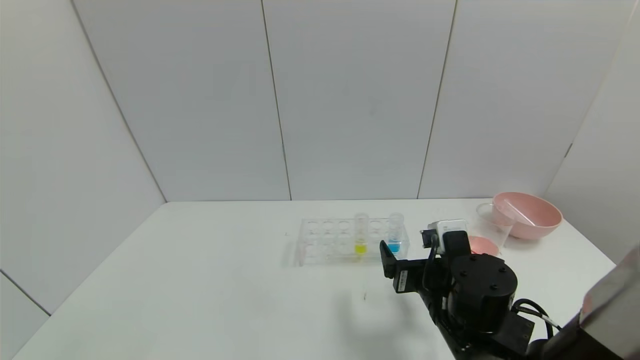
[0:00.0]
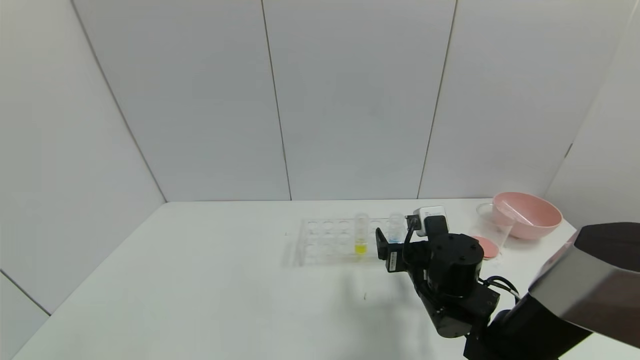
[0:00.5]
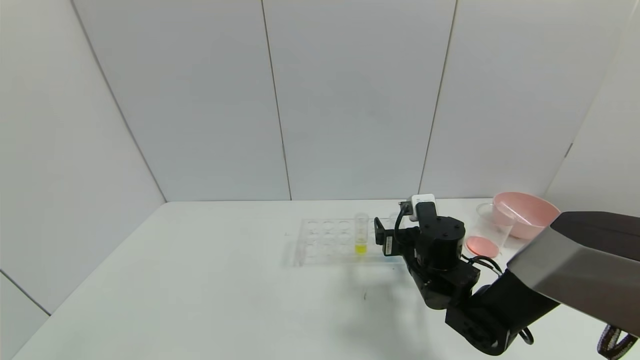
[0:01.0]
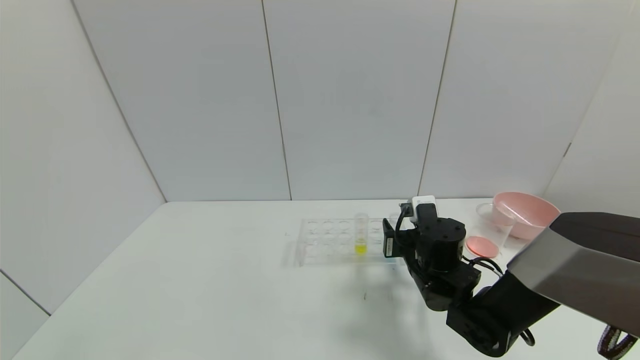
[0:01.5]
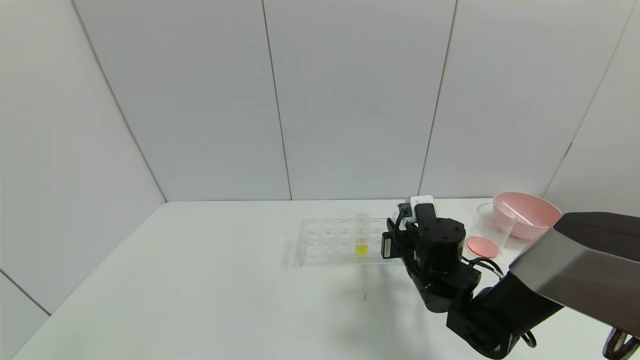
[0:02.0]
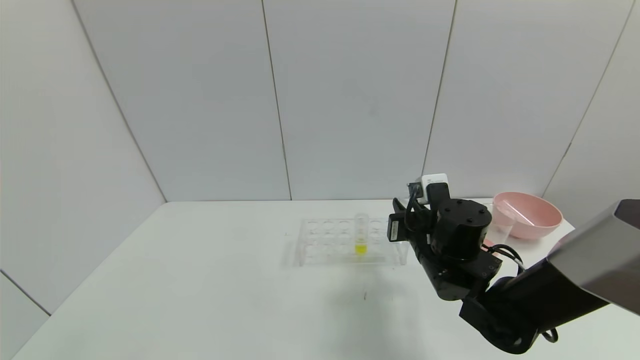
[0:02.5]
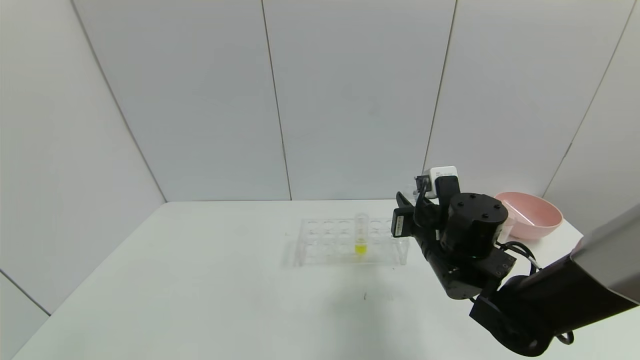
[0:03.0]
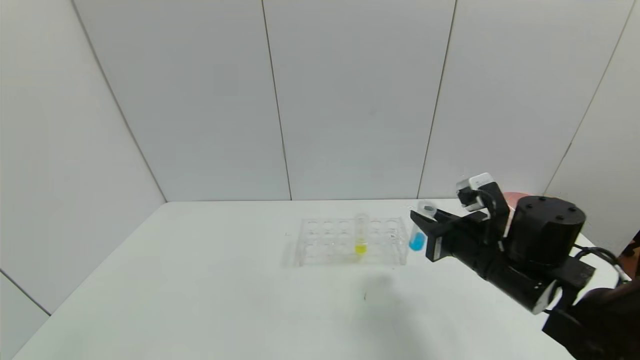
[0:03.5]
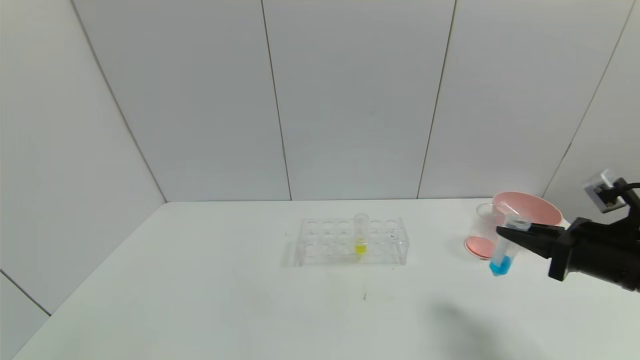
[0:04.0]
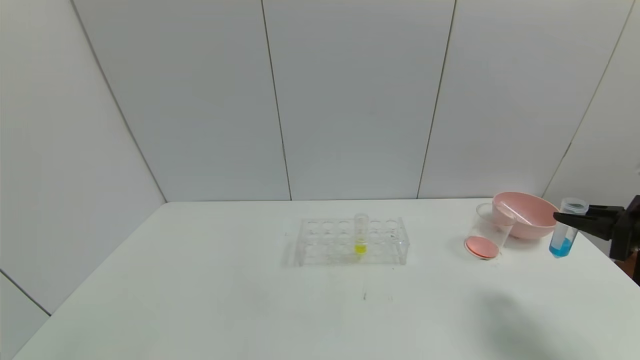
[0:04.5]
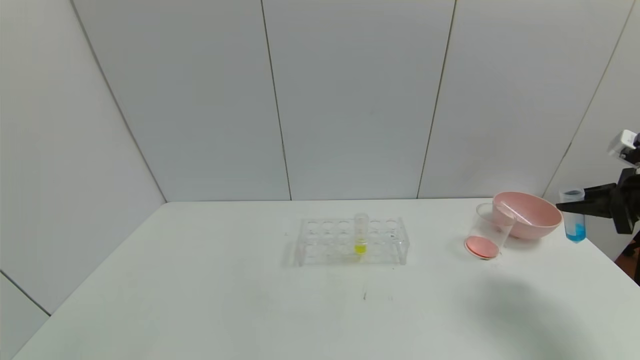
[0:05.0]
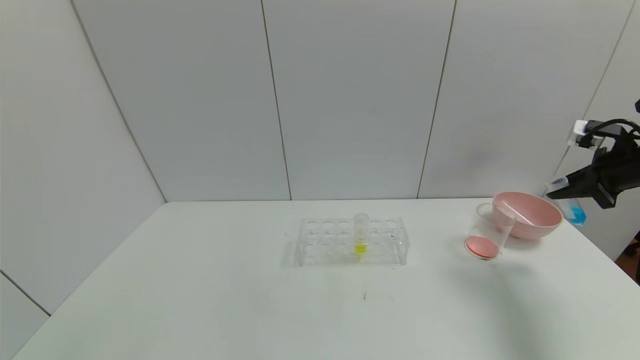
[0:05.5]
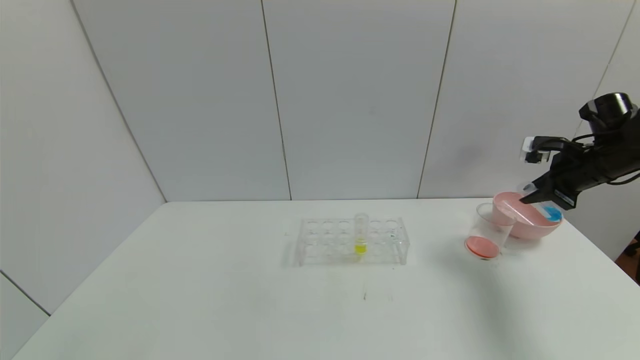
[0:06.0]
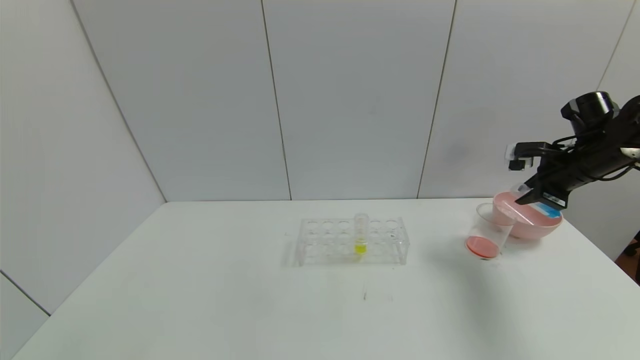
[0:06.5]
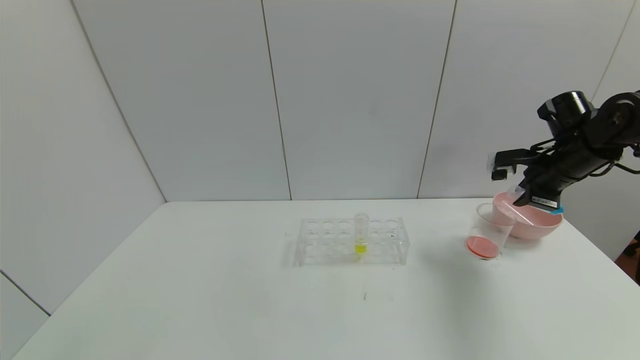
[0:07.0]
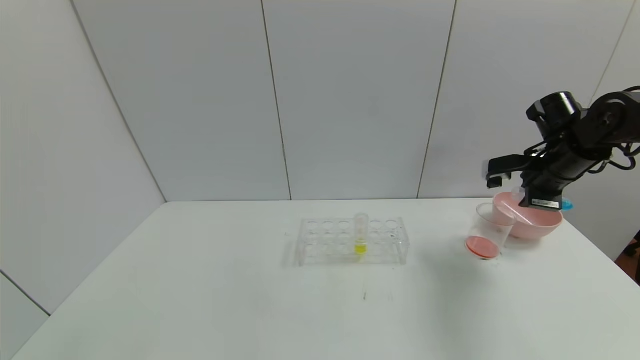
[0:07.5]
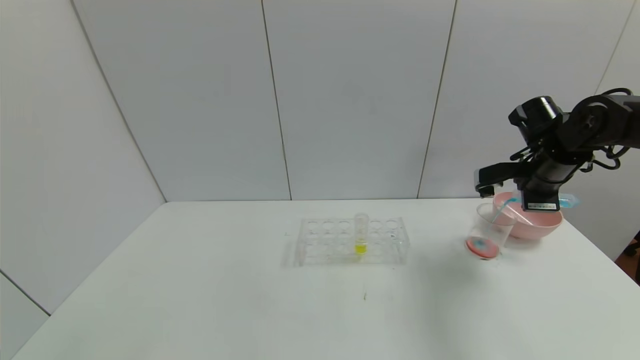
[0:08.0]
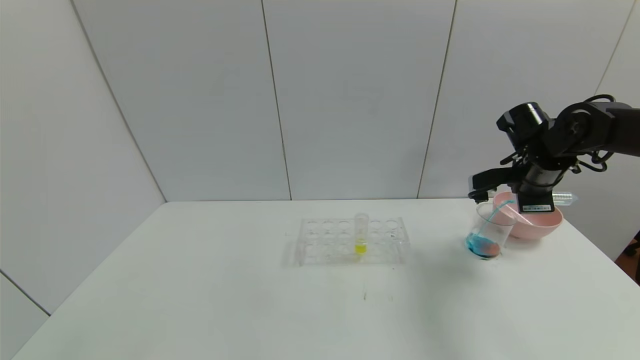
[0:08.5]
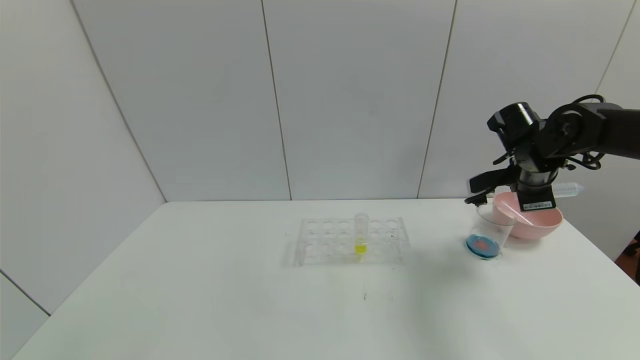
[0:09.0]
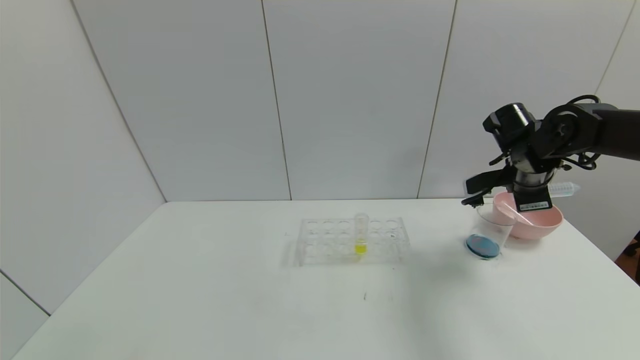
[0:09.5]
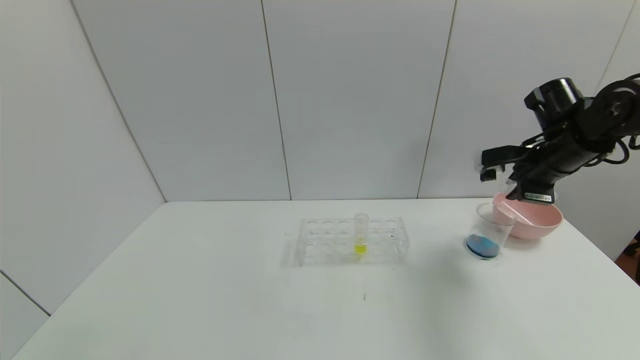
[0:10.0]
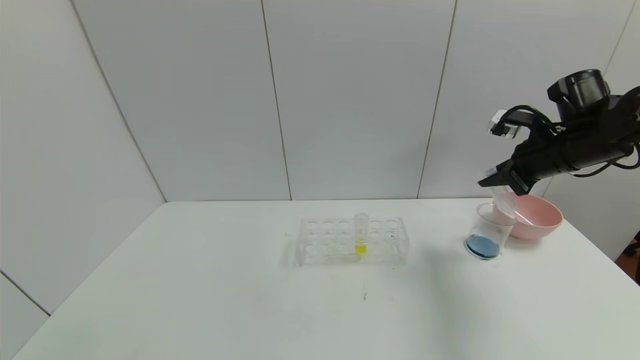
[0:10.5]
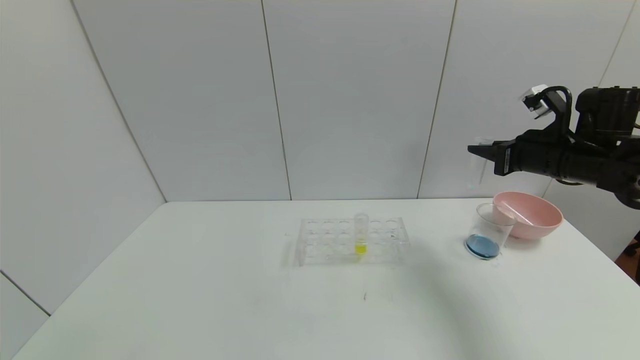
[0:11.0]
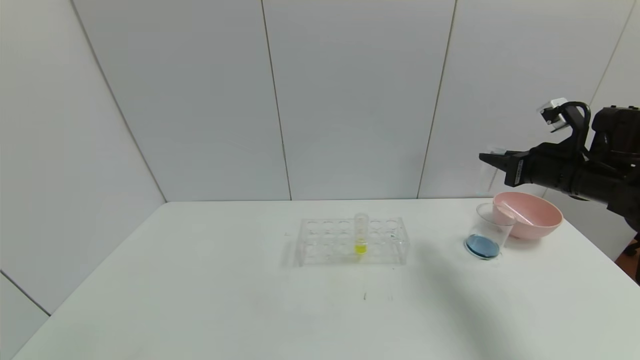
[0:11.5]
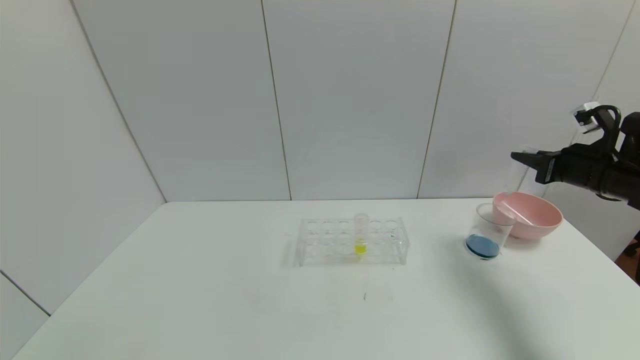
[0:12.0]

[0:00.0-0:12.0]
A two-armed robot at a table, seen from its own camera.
Task of the whole recording: pick up the test tube with red pigment and the test tube with blue pigment by grippers and pour them into the container.
Step, 0:00.0 to 0:04.5: Pick up the test tube containing the blue reagent with right gripper.
Step, 0:05.0 to 0:10.5: Pour the blue reagent into the graduated cylinder with right gripper.
0:00.0 to 0:02.0: The right gripper goes approximately 10 cm forward, and closes.
0:02.0 to 0:04.0: The right gripper shifts roughly 25 cm to the right, backward and upward.
0:04.0 to 0:06.0: The right gripper shifts approximately 20 cm forward and to the right.
0:06.0 to 0:08.0: The right gripper shifts some 10 cm to the left.
0:08.0 to 0:10.0: The grippers make only small movements.
0:10.0 to 0:12.0: The right gripper is displaced to the right by about 10 cm.

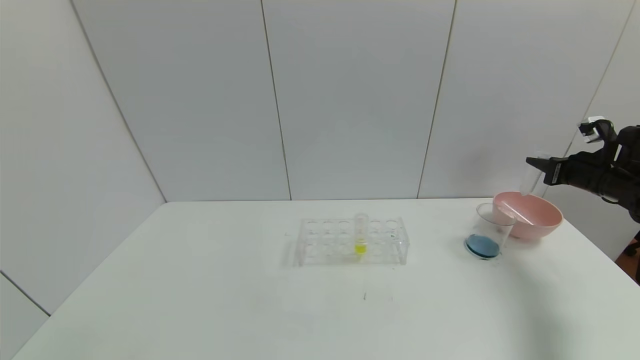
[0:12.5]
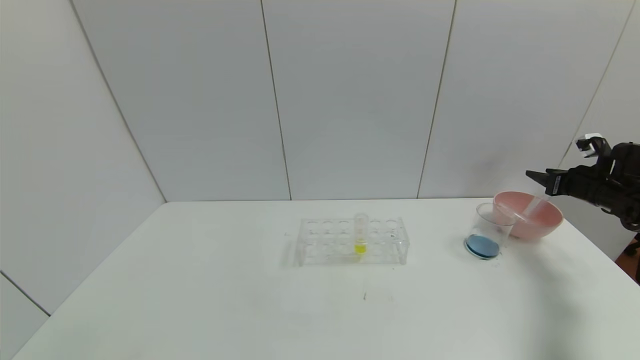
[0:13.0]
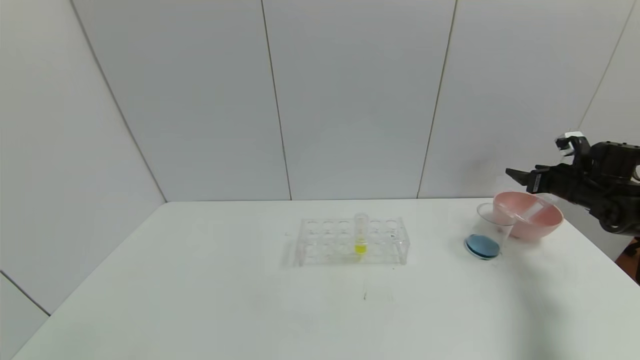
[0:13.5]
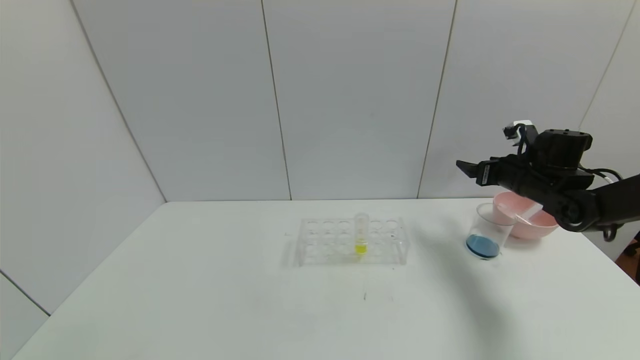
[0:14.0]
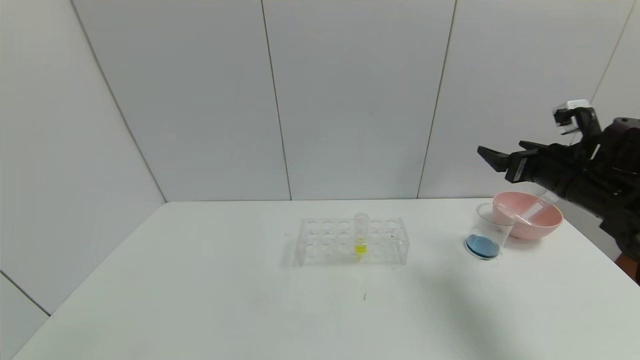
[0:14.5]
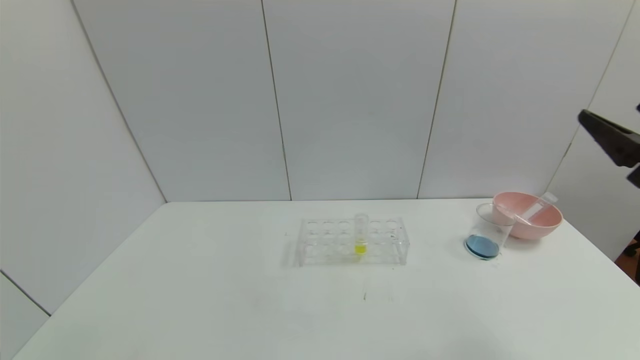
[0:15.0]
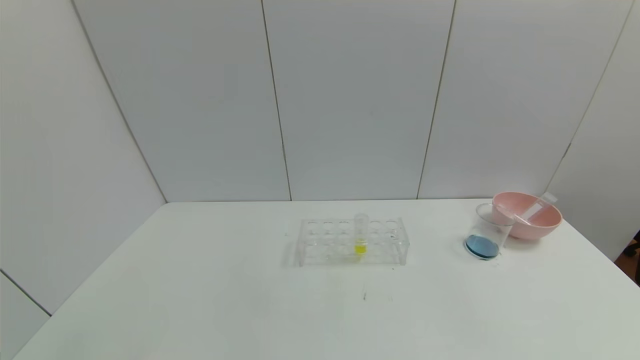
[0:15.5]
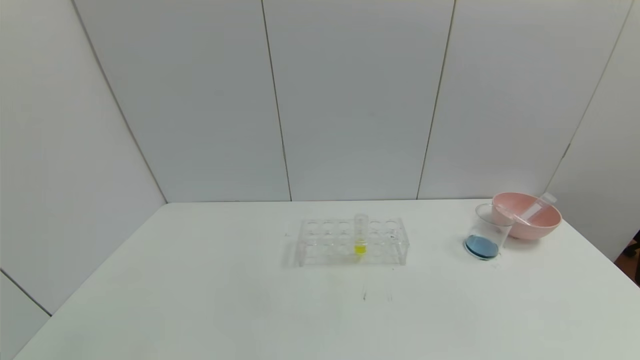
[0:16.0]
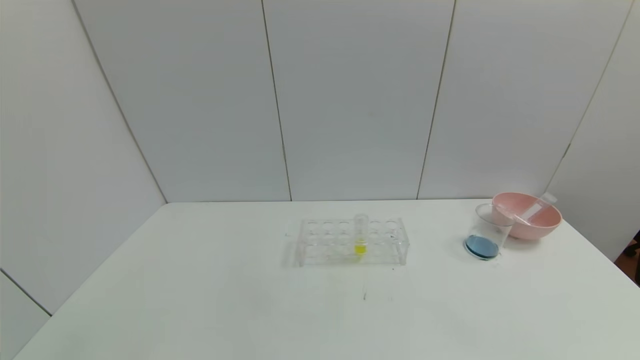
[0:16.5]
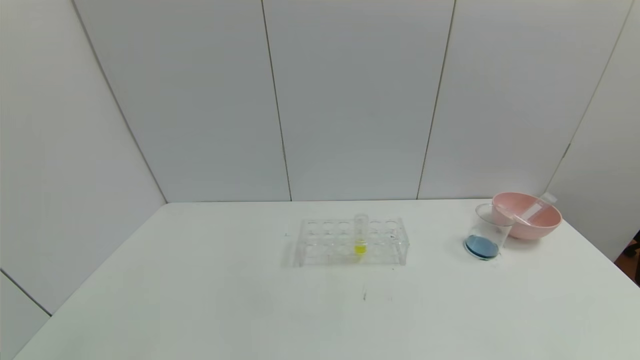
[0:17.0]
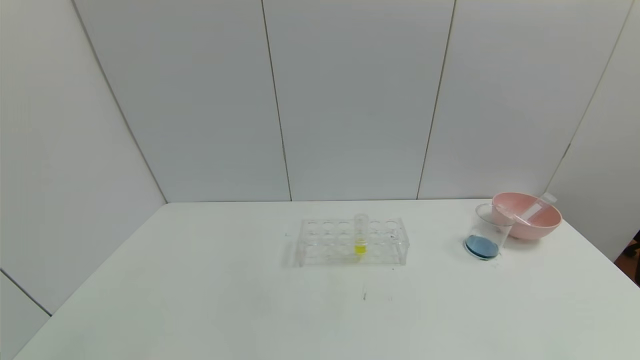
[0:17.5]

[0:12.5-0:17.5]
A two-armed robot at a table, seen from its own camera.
Task of the whole recording: pick up the test tube with red pigment and the test tube with blue pigment by grippers and pour them into the container.
0:12.5 to 0:15.0: The right gripper travels backward, to the left and upward by some 25 cm, and opens its fingers.
0:15.0 to 0:17.5: The right gripper is displaced backward and downward by some 30 cm.
